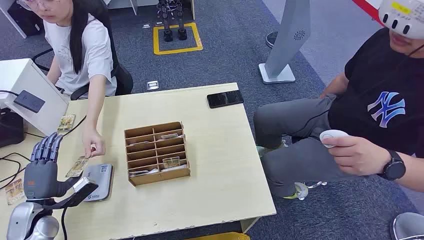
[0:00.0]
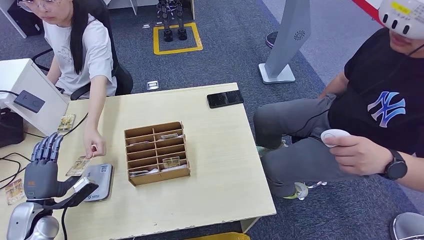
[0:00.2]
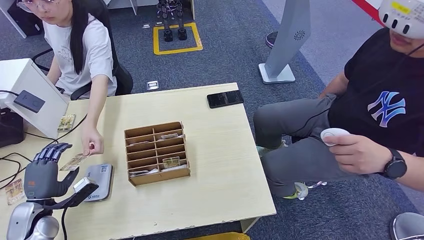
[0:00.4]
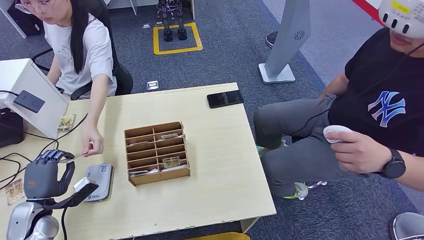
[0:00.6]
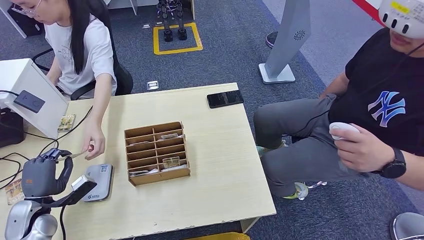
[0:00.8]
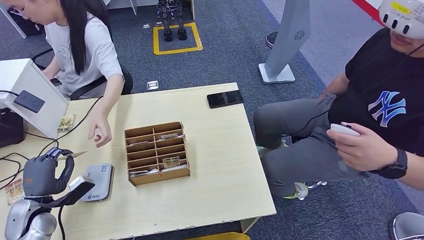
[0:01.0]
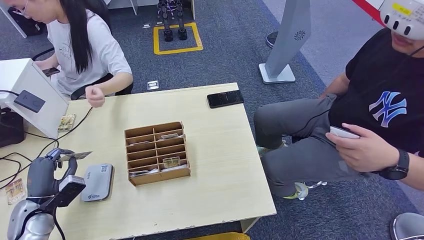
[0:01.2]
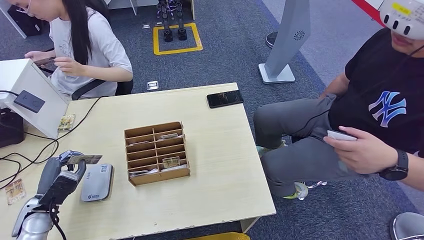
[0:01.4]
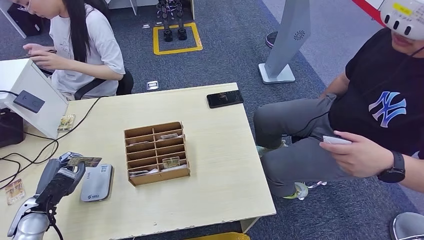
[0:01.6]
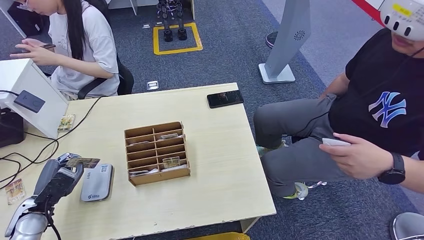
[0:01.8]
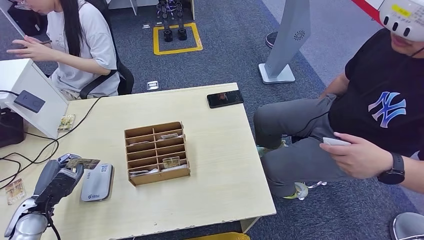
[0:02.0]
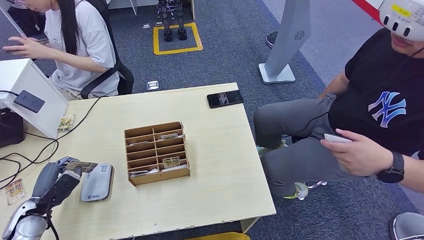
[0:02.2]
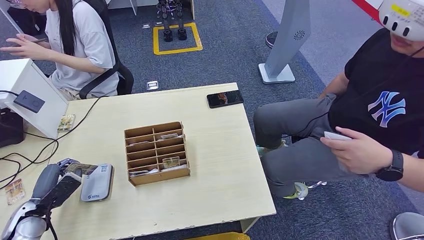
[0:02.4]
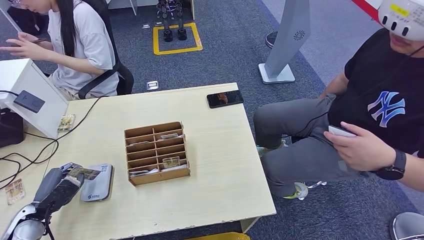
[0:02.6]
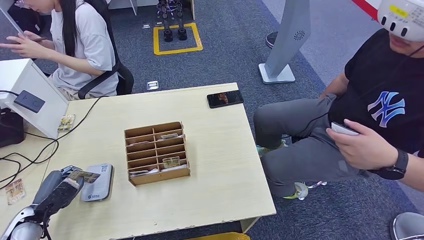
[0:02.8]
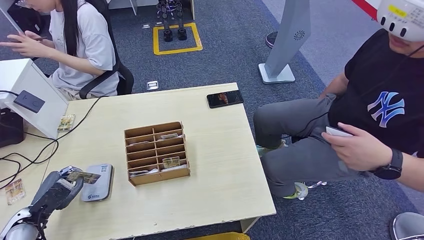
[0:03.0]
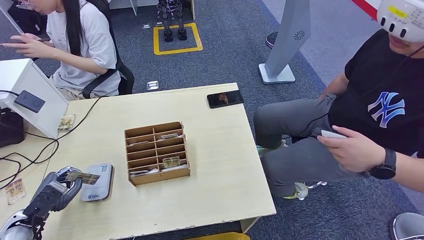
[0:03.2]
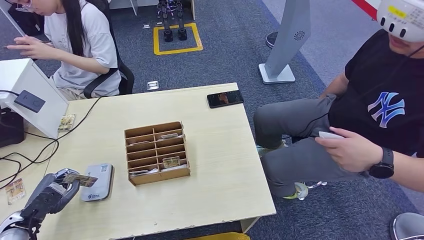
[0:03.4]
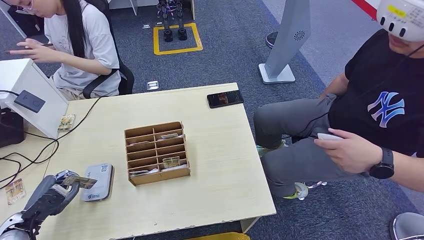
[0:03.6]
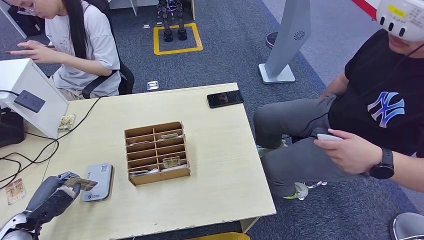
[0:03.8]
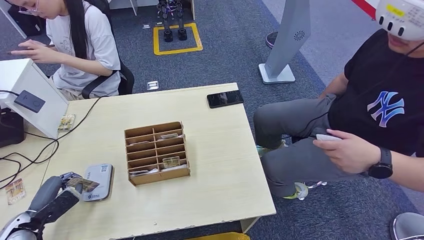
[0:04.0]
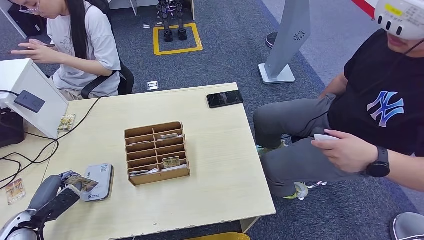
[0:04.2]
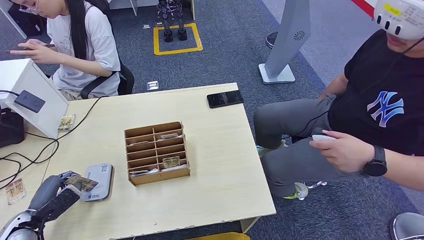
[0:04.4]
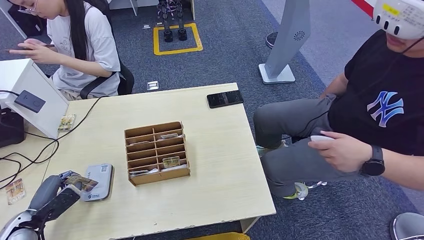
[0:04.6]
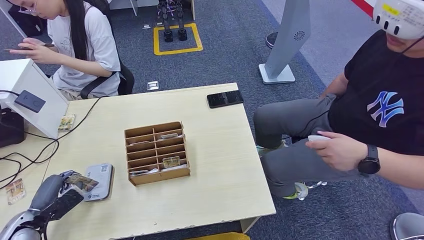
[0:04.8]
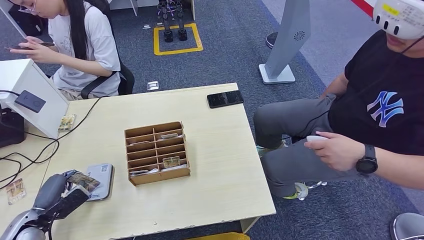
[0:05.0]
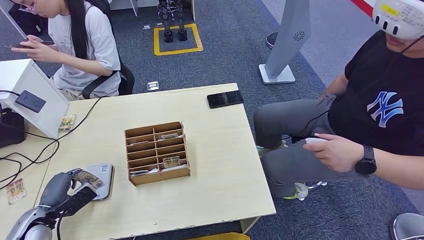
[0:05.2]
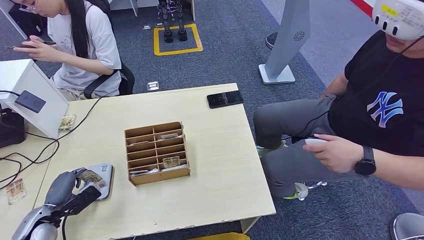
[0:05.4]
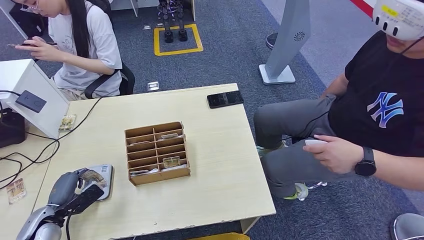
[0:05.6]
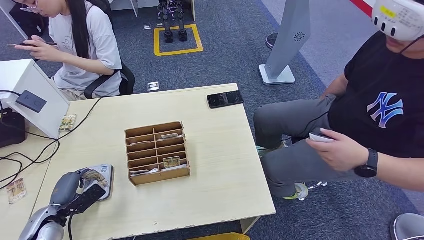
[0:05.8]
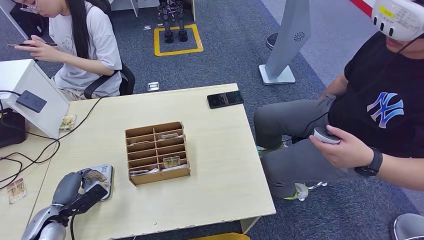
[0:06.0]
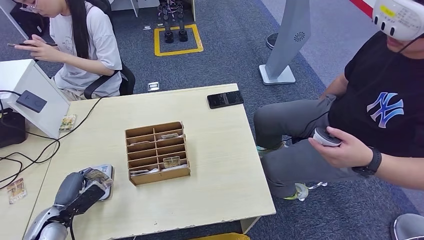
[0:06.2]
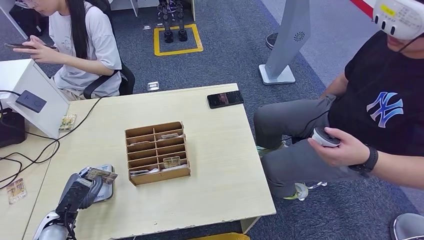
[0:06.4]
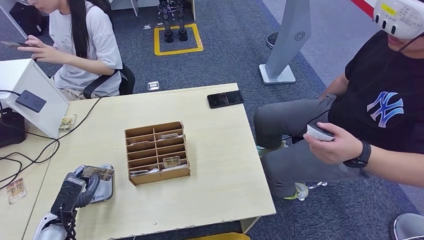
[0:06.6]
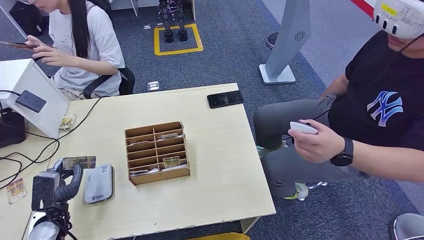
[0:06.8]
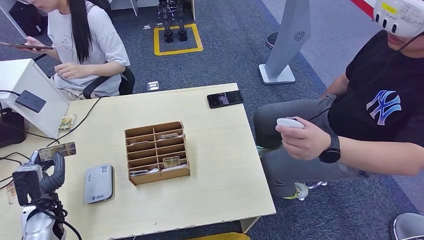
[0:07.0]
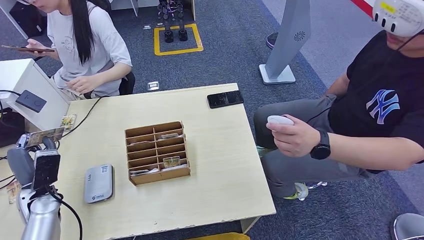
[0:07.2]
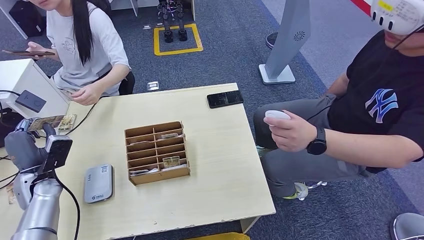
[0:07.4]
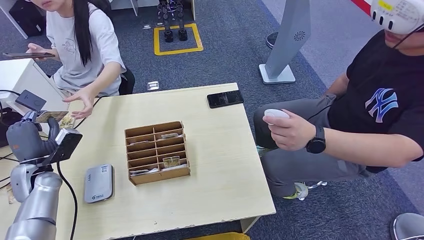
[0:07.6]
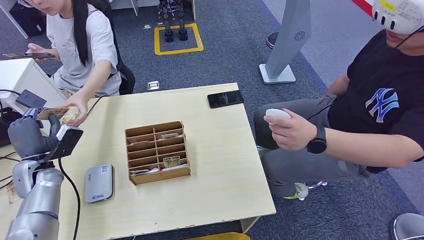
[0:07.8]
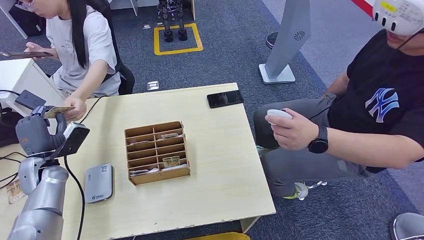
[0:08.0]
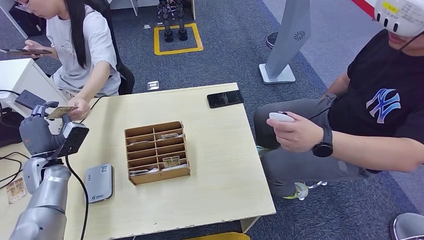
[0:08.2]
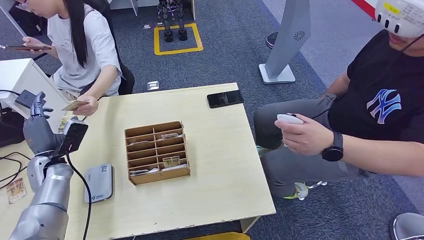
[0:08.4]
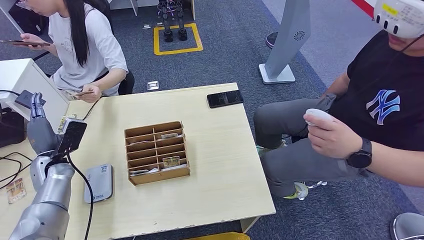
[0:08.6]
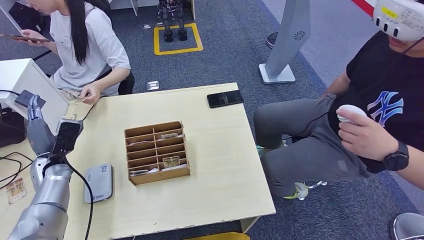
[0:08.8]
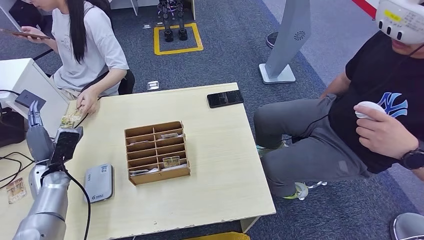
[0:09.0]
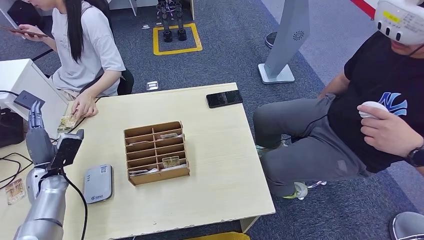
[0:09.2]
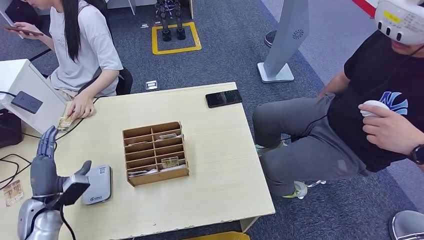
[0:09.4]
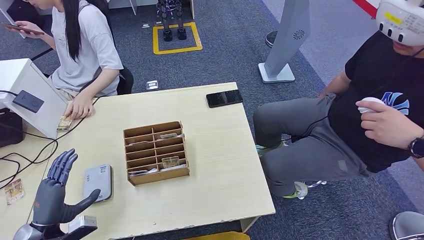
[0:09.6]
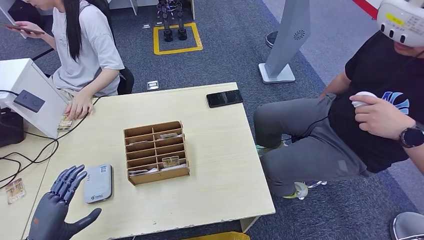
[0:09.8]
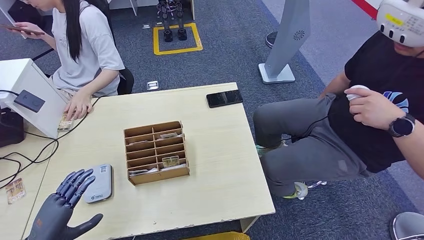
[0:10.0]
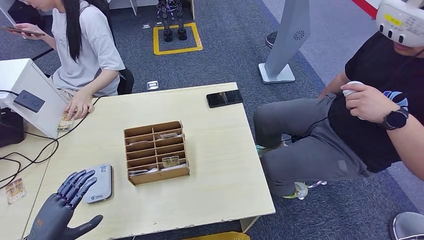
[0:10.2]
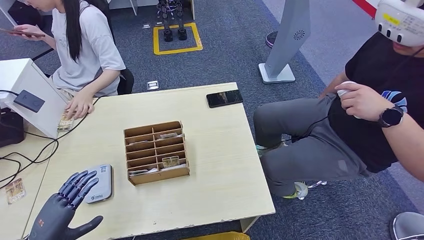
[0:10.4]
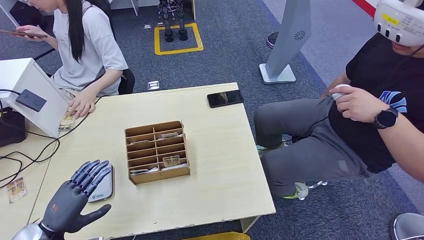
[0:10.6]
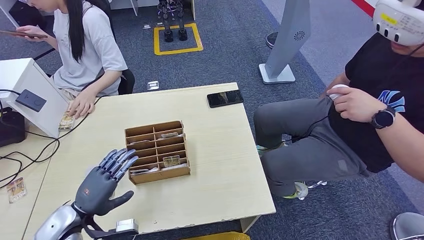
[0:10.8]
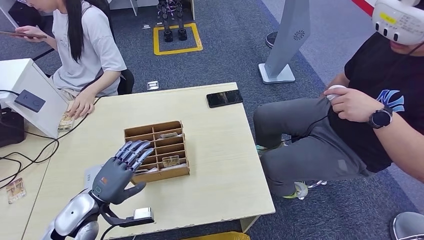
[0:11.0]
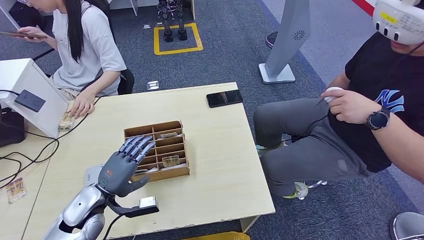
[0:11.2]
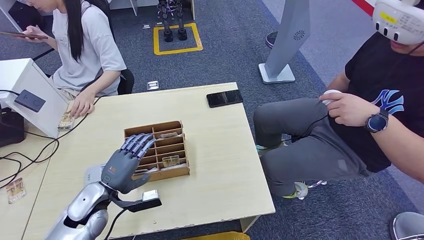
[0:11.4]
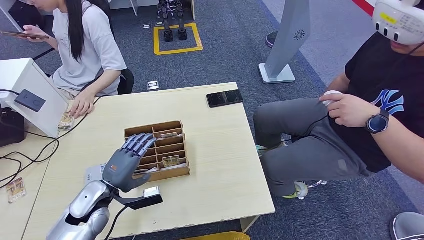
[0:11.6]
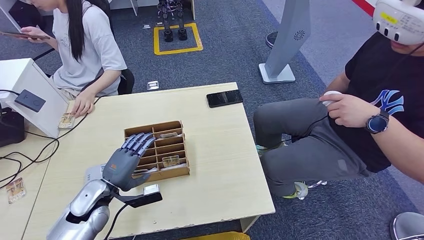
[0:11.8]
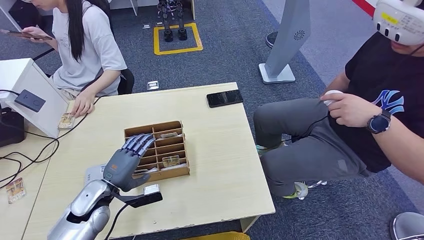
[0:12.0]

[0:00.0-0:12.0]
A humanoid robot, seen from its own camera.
Step, 0:00.0 to 0:01.8: Take the ID card from the person's hand.
Step, 0:02.2 to 0:04.4: Place the ID card on the card reader.
Step, 0:04.6 to 0:08.6: Hand the ID card to the person.
0:01.6 to 0:04.4: The hands make only small movements.
0:04.4 to 0:06.0: The left hand ends up about 5 cm from where it was.
0:07.6 to 0:09.0: The hands move only a little.
0:09.0 to 0:10.4: The left hand moves backward, some 20 cm.
0:10.4 to 0:12.0: The left hand goes roughly 15 cm to the right and forward.

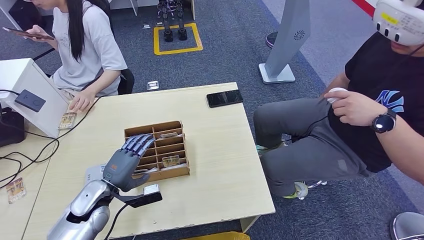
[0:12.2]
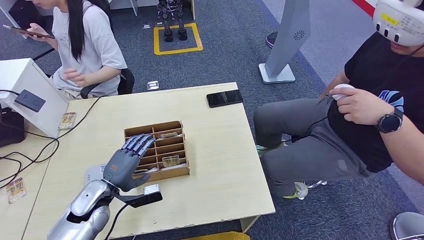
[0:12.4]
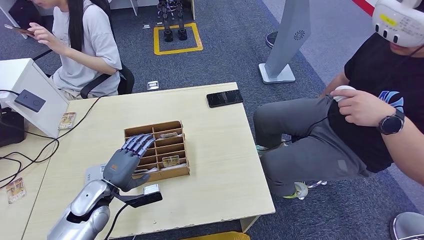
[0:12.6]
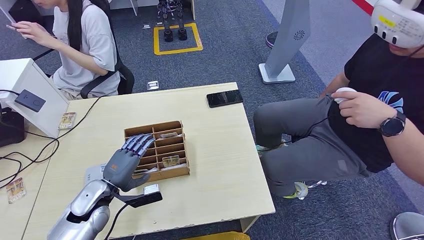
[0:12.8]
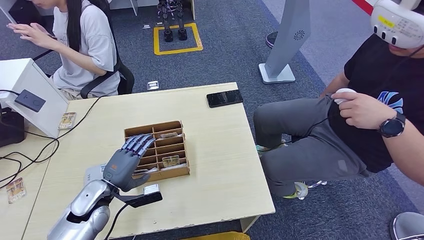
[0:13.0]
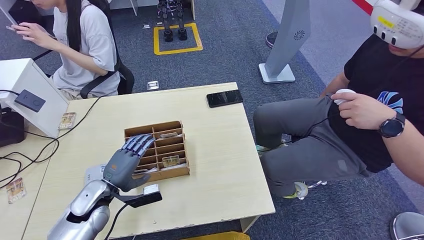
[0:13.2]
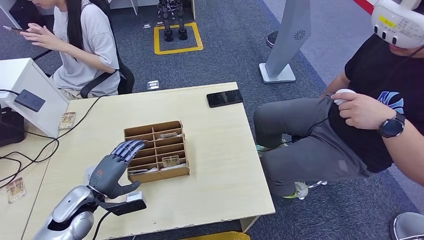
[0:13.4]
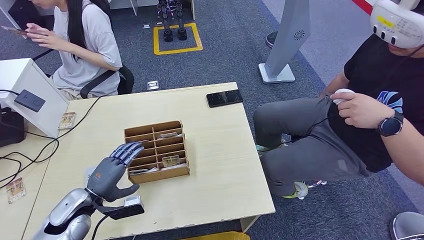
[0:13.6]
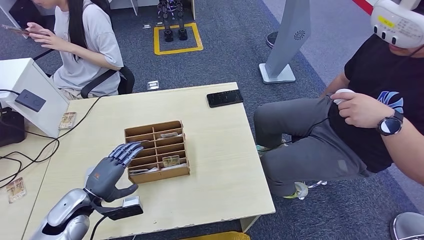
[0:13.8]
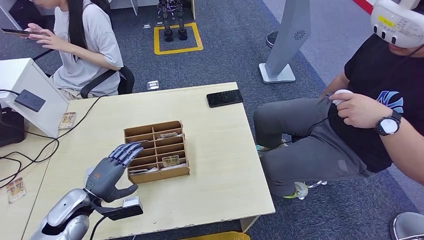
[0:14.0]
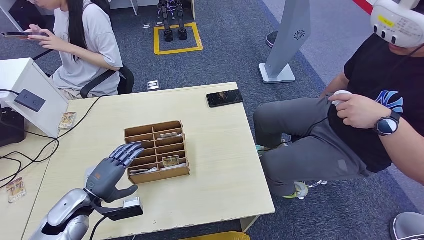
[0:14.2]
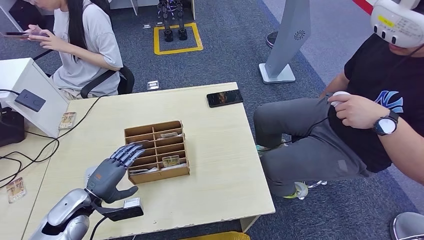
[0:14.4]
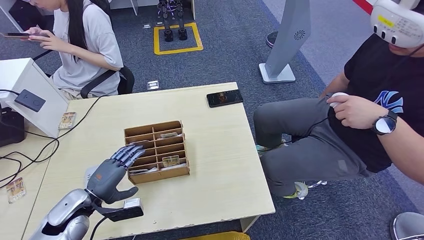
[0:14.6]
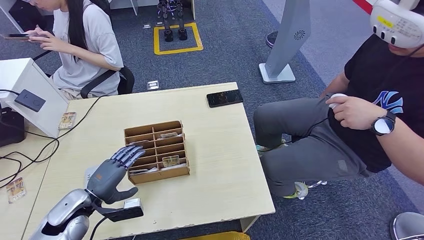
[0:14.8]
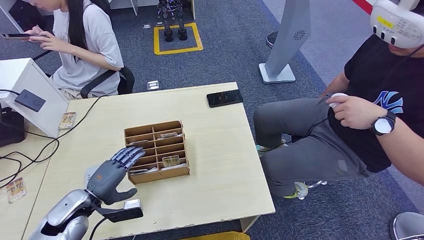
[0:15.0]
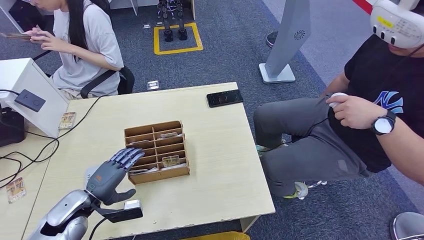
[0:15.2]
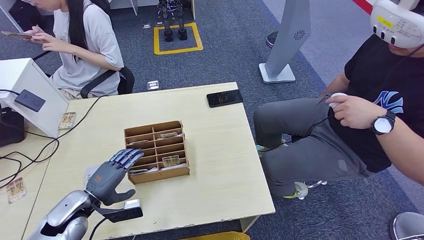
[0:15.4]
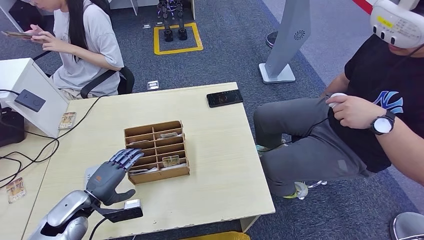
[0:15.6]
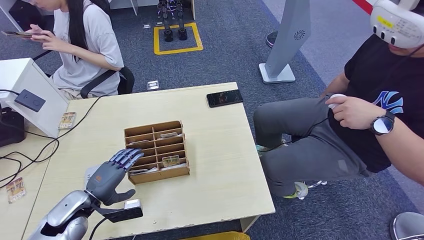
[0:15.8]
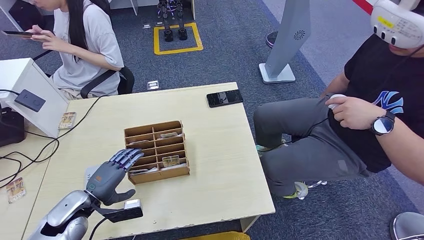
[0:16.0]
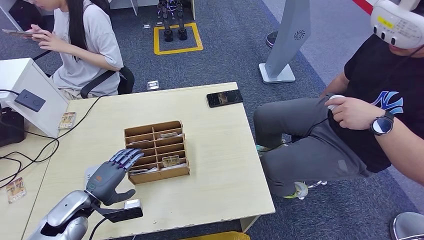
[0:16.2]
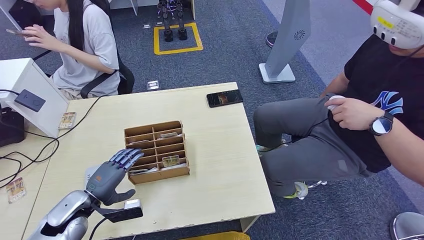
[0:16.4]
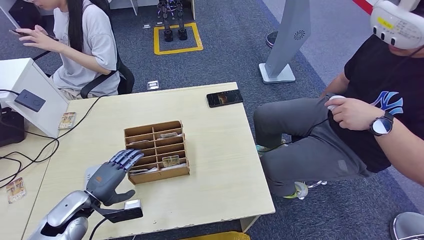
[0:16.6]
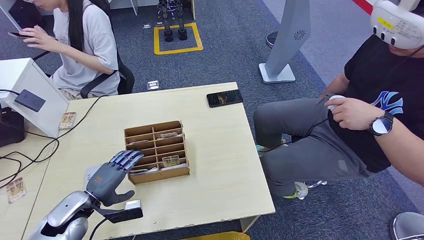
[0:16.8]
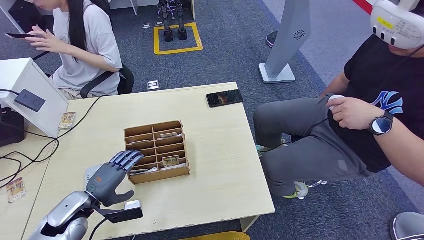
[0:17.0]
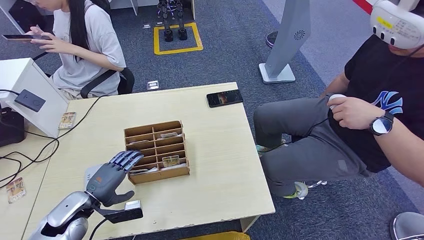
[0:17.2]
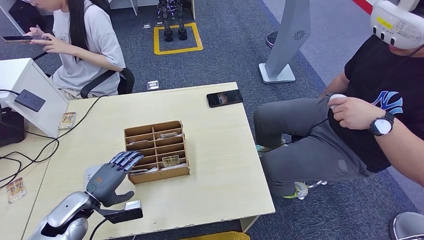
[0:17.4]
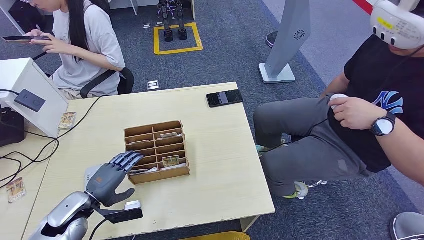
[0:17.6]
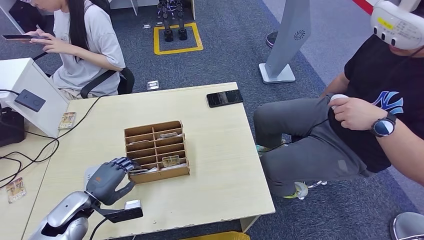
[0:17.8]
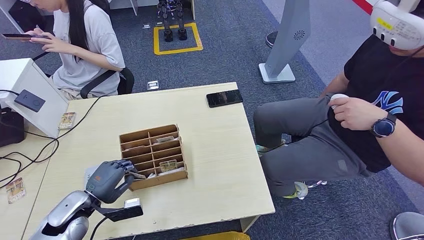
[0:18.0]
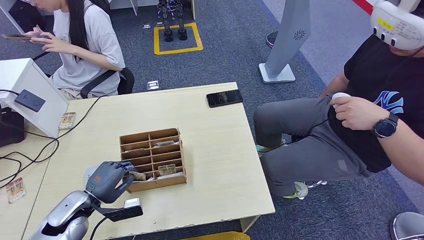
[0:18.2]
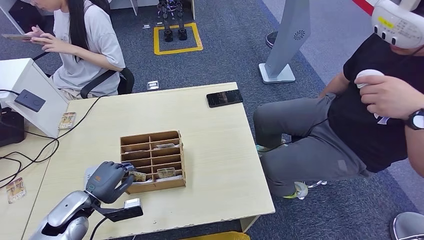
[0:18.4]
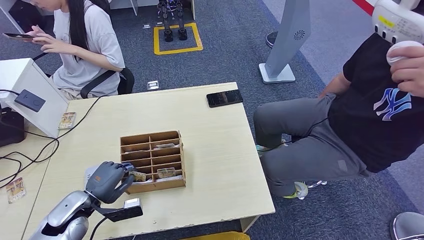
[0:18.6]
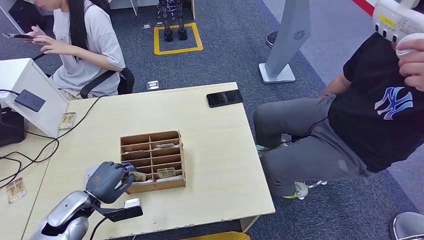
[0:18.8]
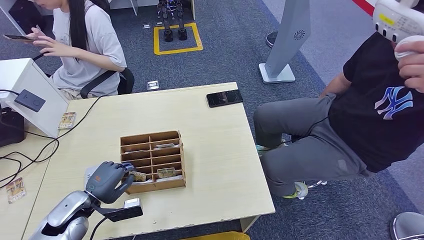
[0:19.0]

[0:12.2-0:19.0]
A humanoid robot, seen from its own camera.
0:12.2 to 0:15.0: There are only small adjustments of the hands.
0:15.0 to 0:19.0: Neither hand changes place.
